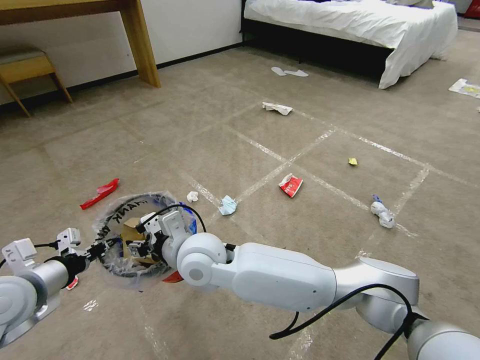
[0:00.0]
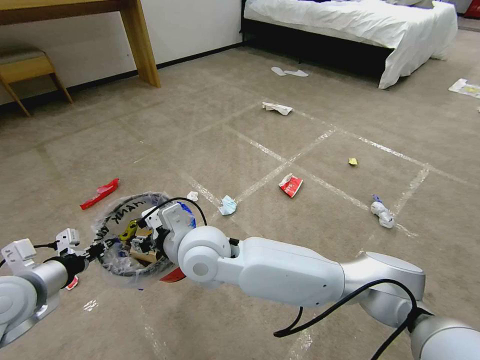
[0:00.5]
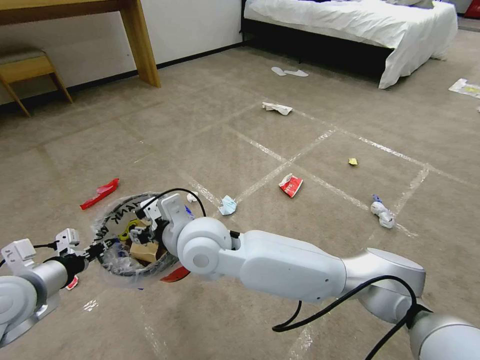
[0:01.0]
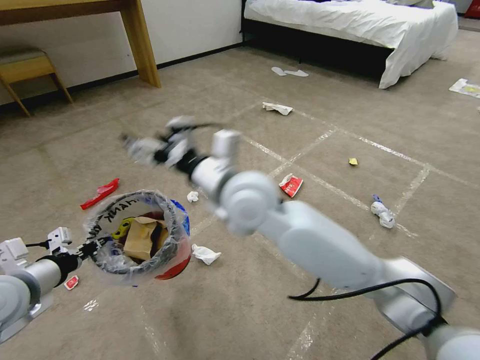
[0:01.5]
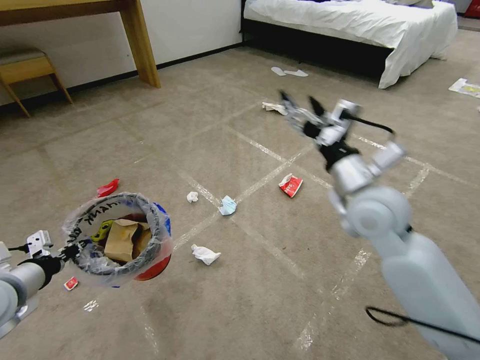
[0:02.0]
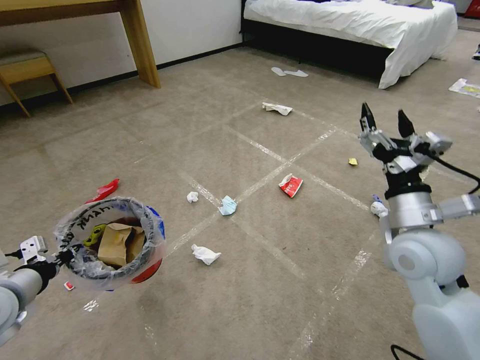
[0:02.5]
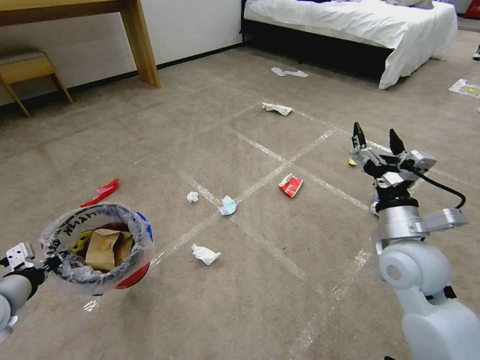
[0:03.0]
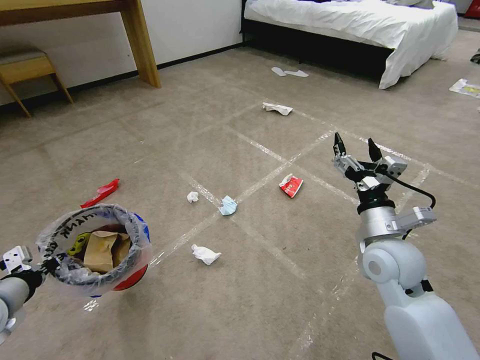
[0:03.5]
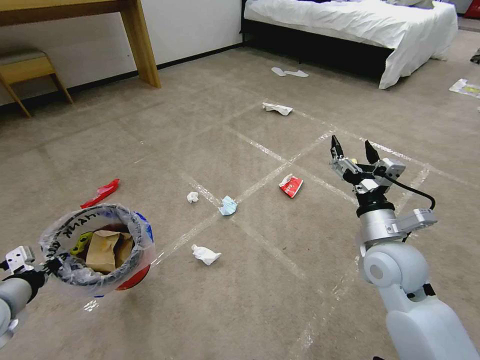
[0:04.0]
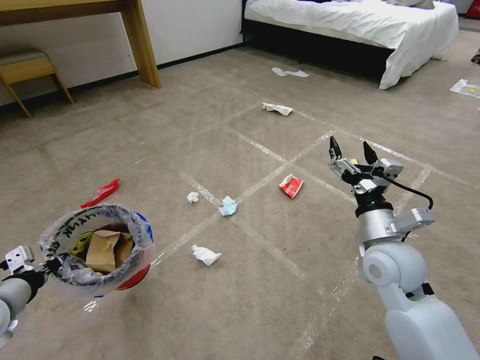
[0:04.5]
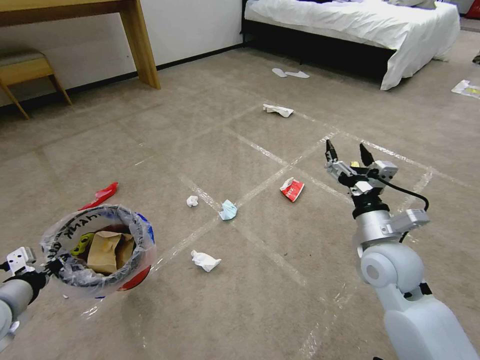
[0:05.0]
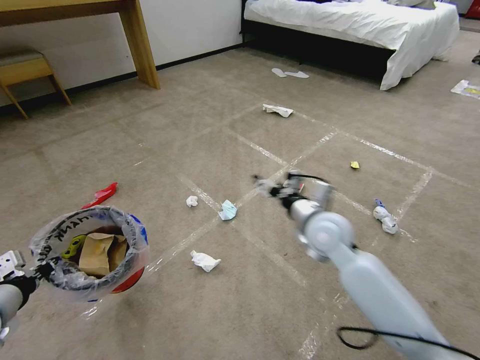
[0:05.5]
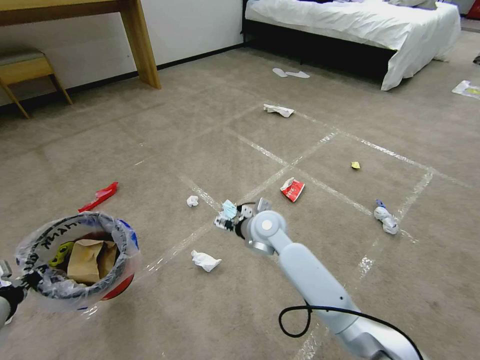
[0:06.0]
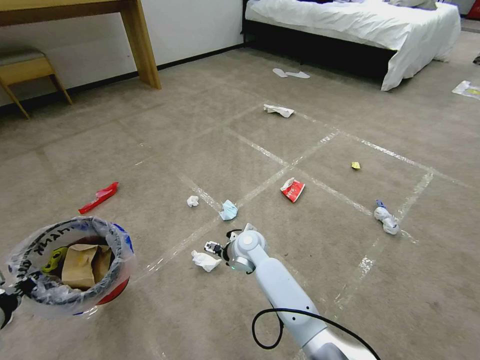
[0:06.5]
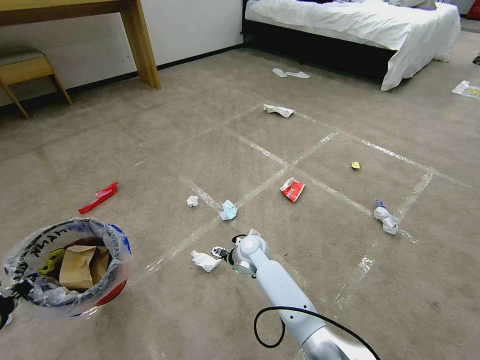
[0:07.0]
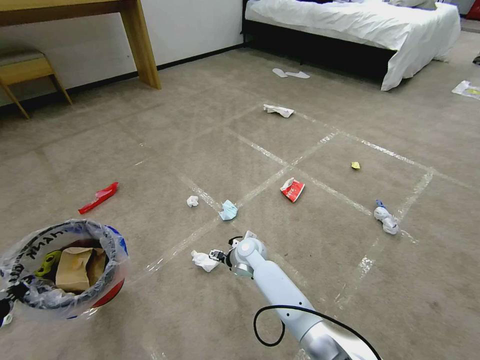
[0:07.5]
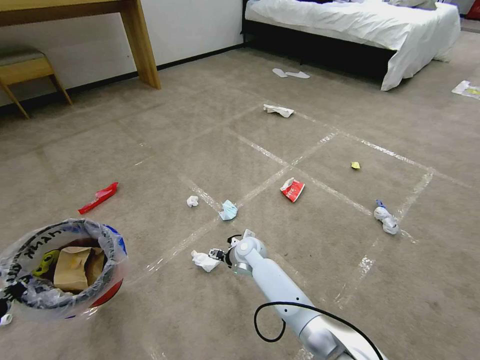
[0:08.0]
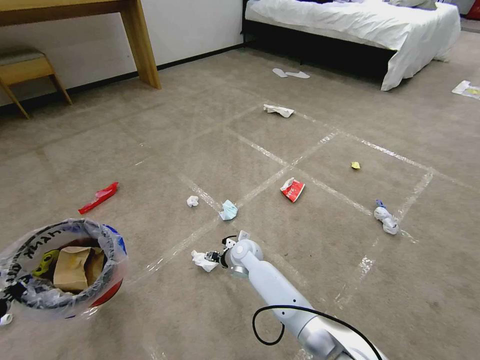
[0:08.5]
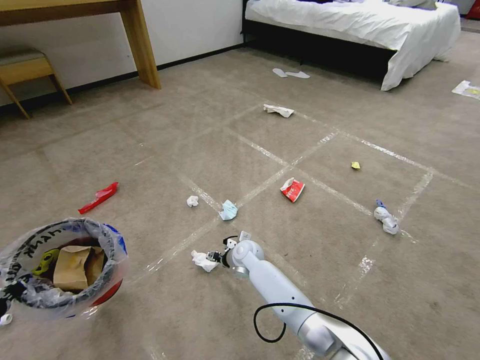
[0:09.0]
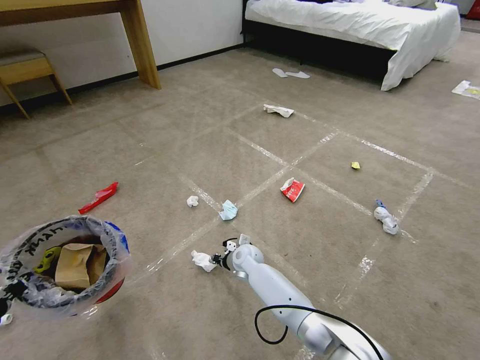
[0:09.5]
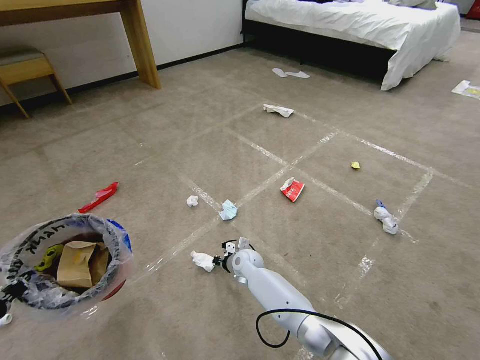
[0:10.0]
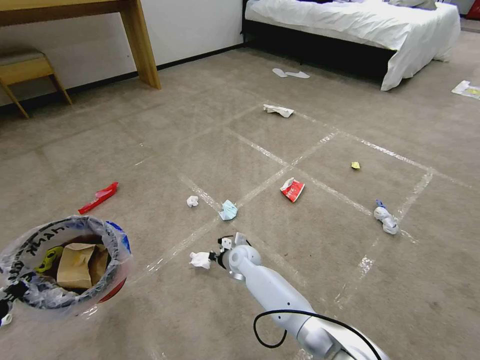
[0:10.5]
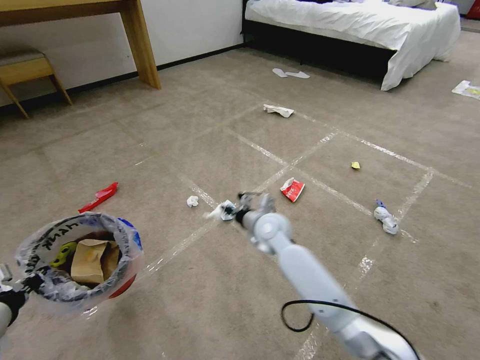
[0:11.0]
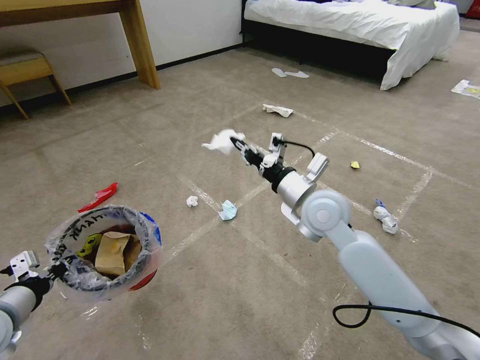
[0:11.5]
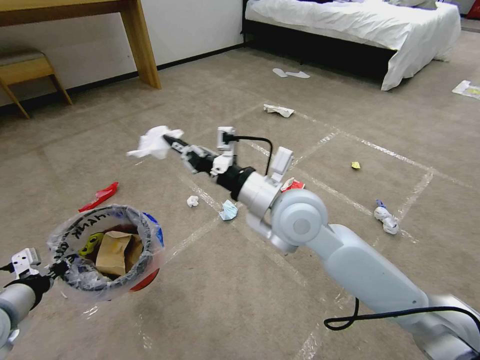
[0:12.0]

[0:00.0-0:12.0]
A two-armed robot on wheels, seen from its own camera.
Task of the whole recording: Pick up the trash bin and place the garbage on the floor into it.
0:00.0 to 0:02.0: The right gripper heads to the right, covering roughly 30 cm, and opens up.
0:02.0 to 0:04.0: The right gripper shifts roughly 10 cm downward and backward.
0:04.0 to 0:06.0: The right gripper shifts about 25 cm to the left and forward.
0:06.0 to 0:08.0: The right gripper moves downward, roughly 15 cm.
0:08.0 to 0:10.0: The right gripper shifts about 5 cm downward, and closes up.
0:10.0 to 0:12.0: The right gripper is displaced upward by some 35 cm. The left gripper shifts some 5 cm forward.

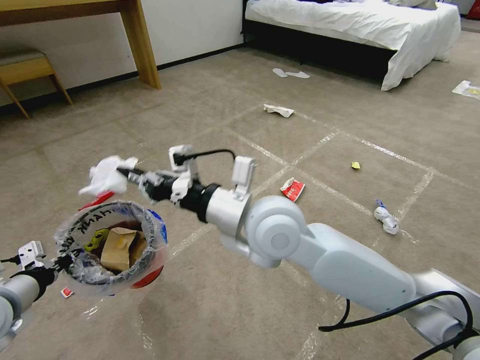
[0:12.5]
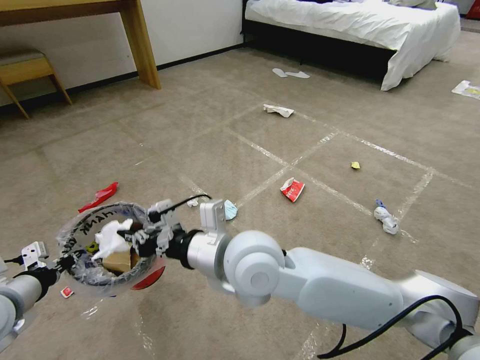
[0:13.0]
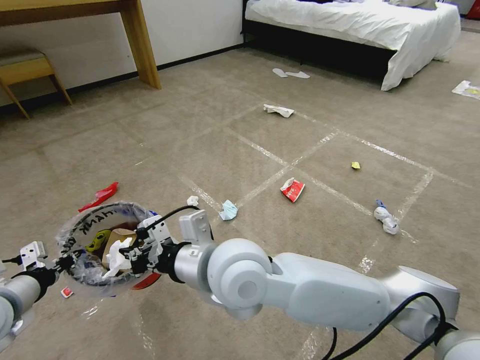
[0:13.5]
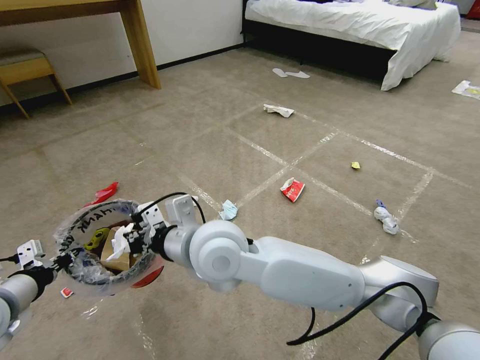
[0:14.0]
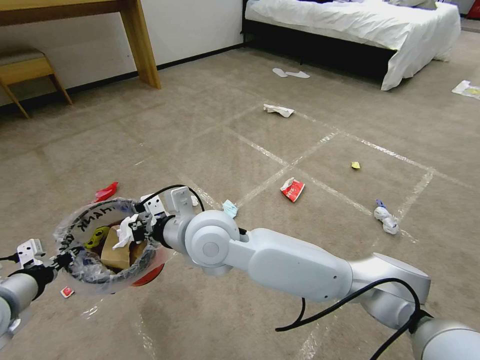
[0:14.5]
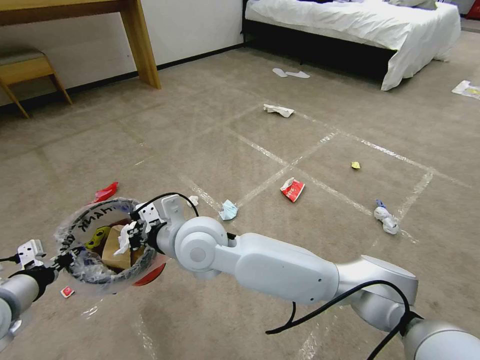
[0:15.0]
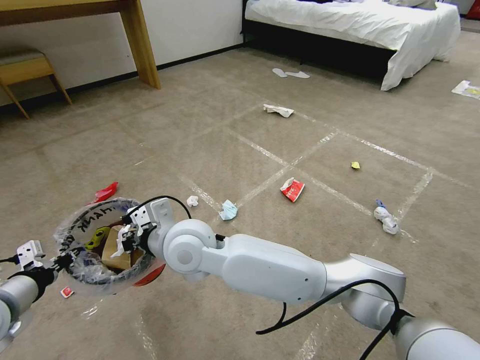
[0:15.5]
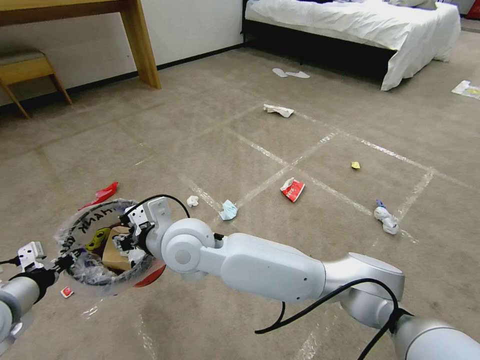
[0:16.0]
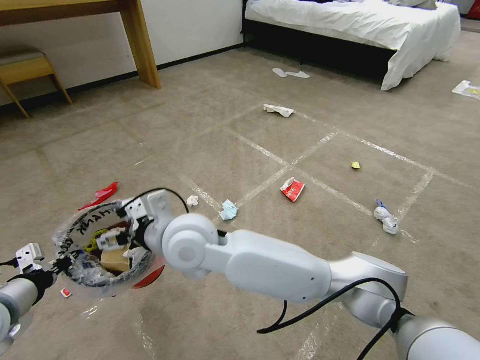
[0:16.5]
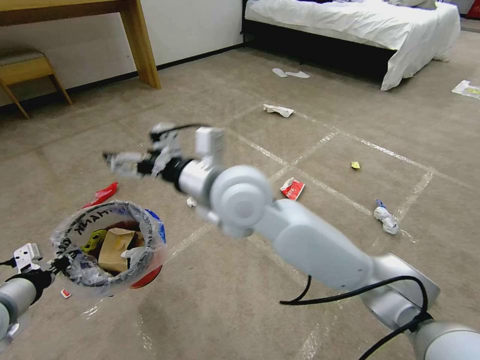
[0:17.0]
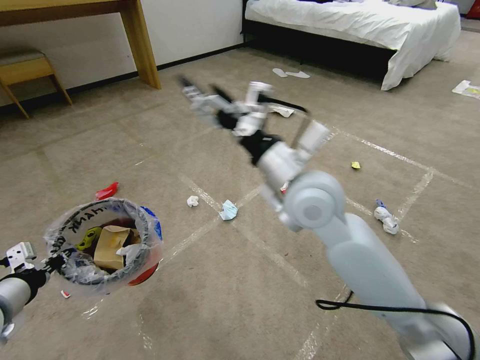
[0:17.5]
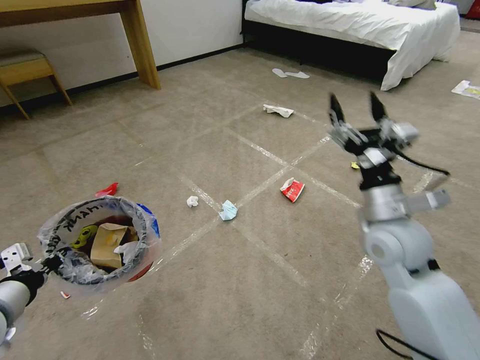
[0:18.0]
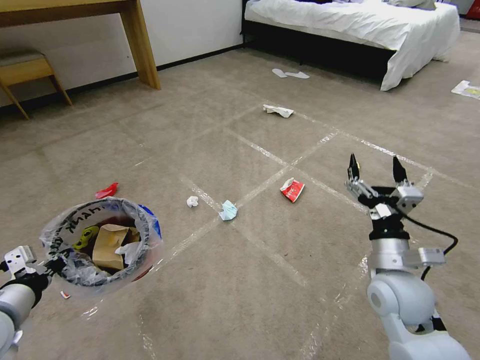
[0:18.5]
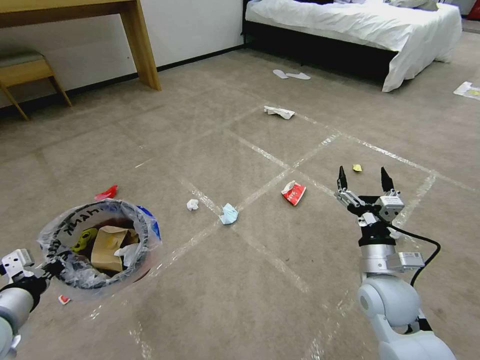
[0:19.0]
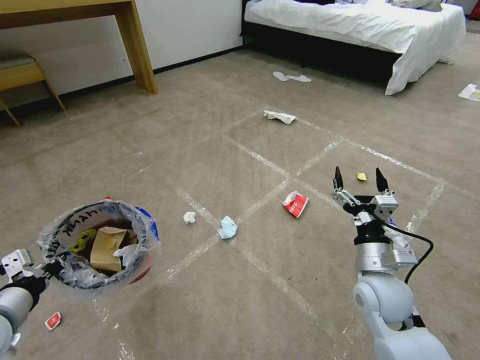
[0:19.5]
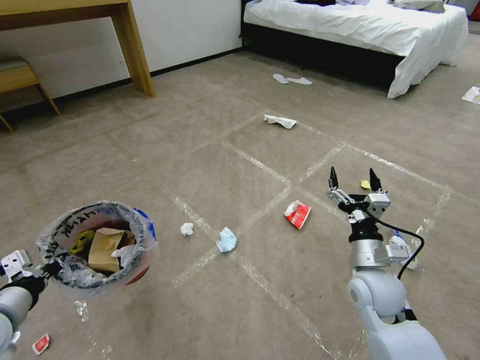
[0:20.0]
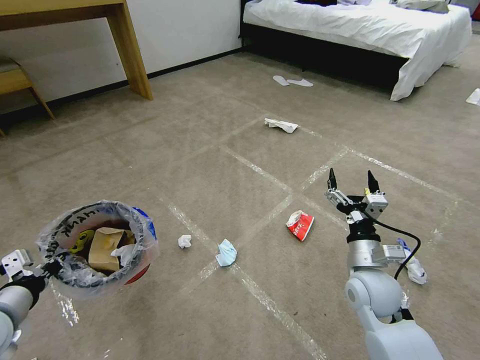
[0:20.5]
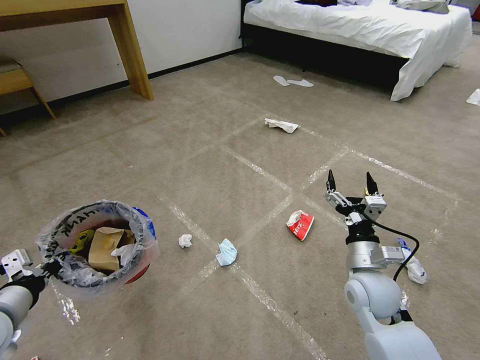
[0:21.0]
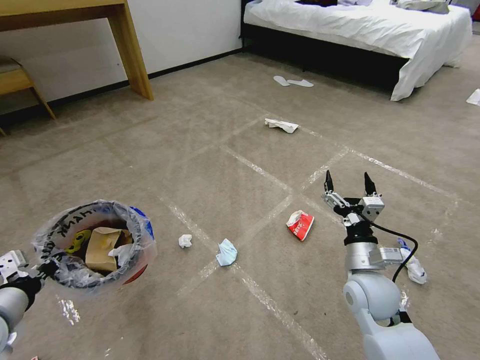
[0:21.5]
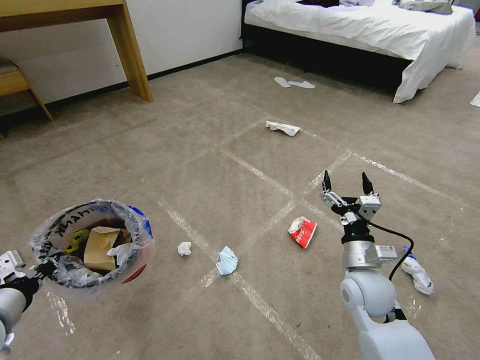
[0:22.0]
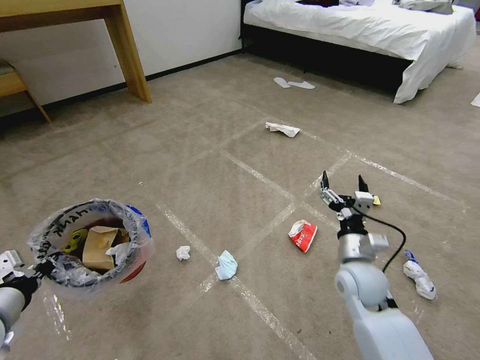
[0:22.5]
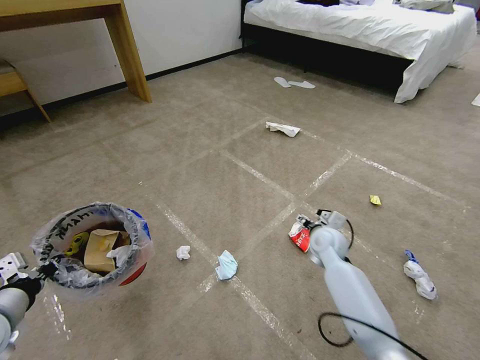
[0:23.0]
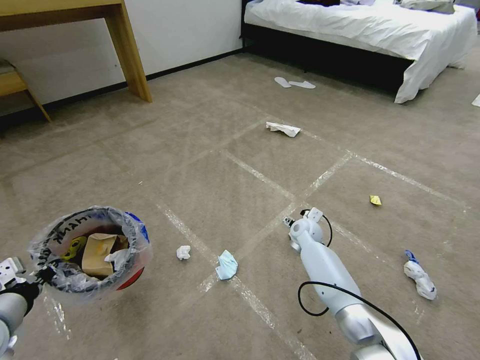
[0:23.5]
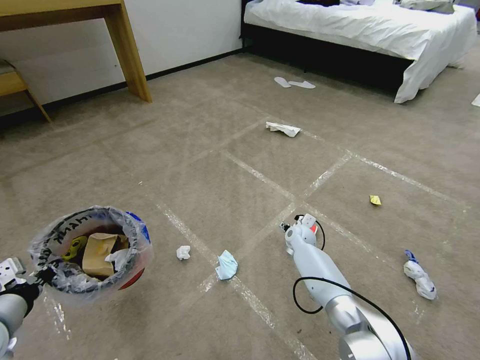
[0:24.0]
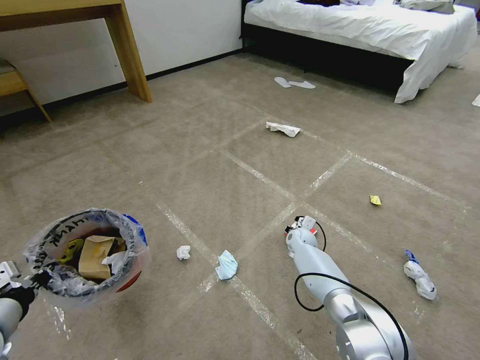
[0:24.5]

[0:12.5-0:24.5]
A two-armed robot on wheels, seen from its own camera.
Task of the whole recording: Pick up the trash bin and place the garbage on the floor into it.
0:12.5 to 0:14.5: The right gripper goes roughly 10 cm to the left.
0:14.5 to 0:16.5: The right gripper opens up.
0:16.5 to 0:18.5: The right gripper travels to the right by about 40 cm.
0:18.5 to 0:20.5: The right gripper changes place by approximately 5 cm.
0:20.5 to 0:22.5: The grippers stay close to where they were, moving slightly.
0:22.5 to 0:24.5: The right gripper goes some 25 cm forward and downward, and closes up.

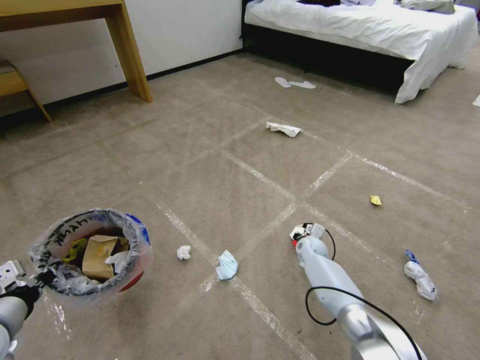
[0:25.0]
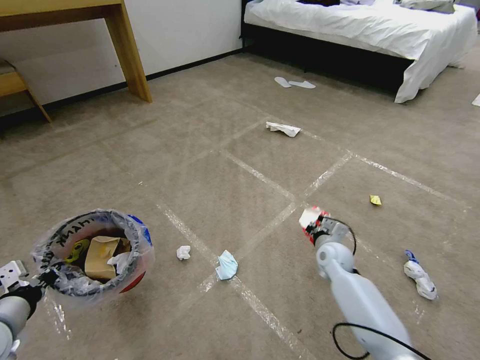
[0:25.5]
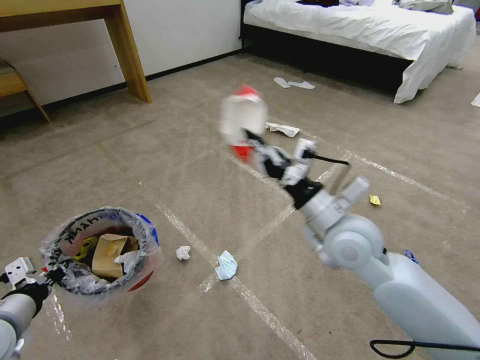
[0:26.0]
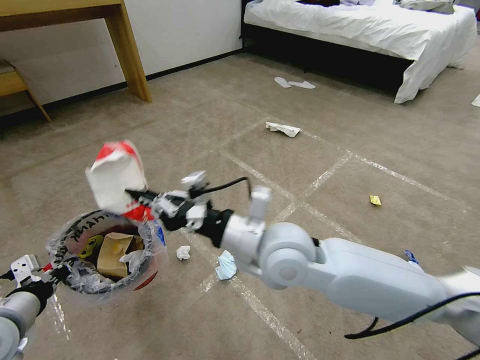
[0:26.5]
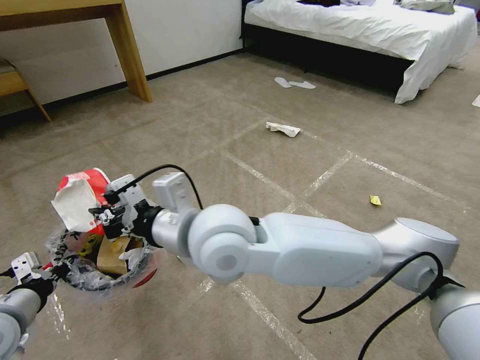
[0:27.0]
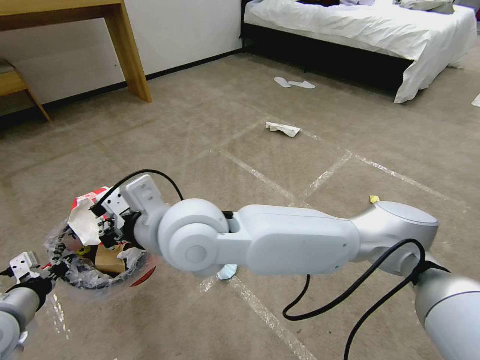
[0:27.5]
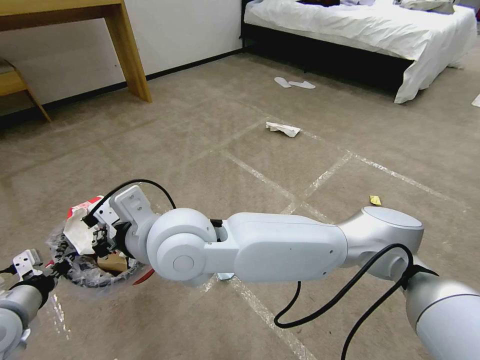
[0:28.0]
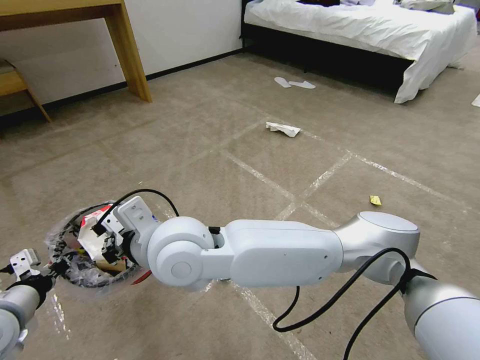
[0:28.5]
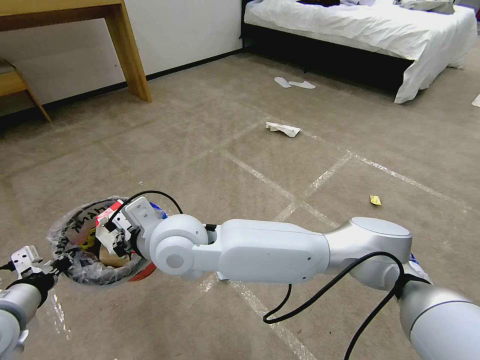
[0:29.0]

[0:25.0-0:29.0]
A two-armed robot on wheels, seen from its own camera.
Task of the whole recording: Pick up the trash bin and place the garbage on the floor into it.
0:25.0 to 0:27.0: The right gripper goes about 50 cm upward, to the left and backward.
0:27.0 to 0:29.0: The right gripper moves to the left and downward, about 10 cm.
